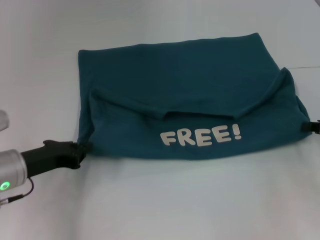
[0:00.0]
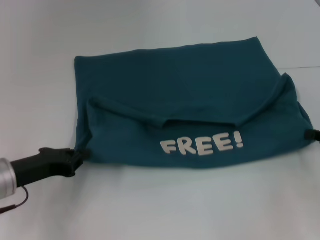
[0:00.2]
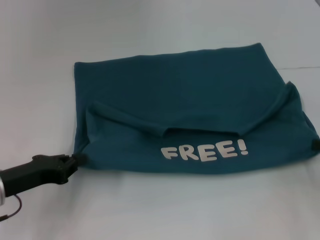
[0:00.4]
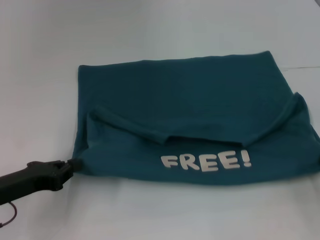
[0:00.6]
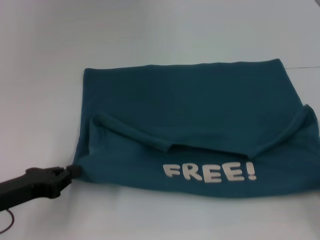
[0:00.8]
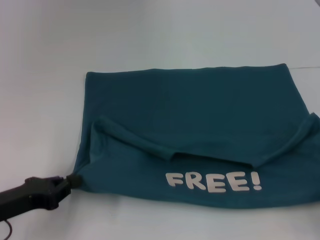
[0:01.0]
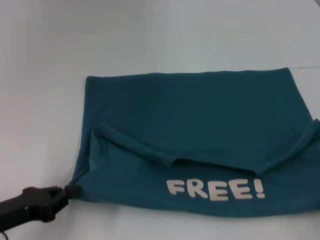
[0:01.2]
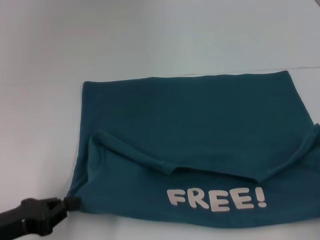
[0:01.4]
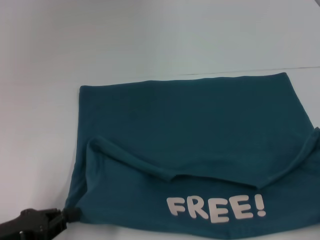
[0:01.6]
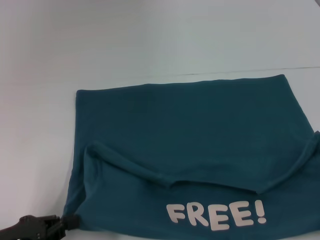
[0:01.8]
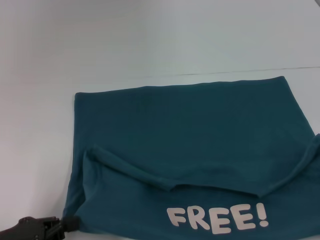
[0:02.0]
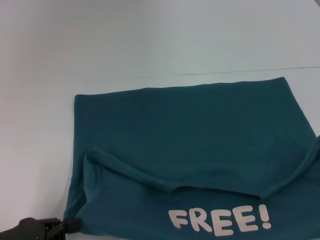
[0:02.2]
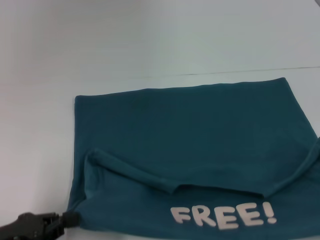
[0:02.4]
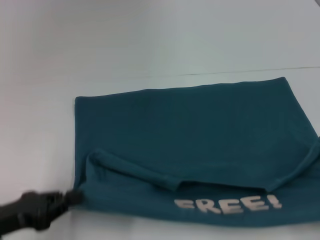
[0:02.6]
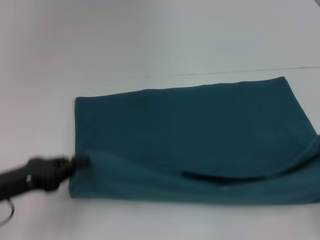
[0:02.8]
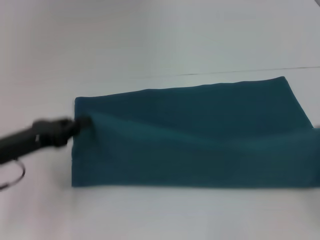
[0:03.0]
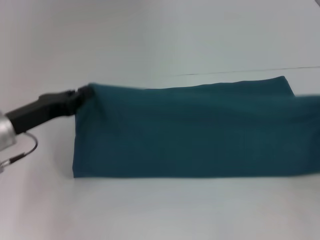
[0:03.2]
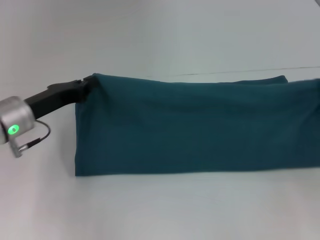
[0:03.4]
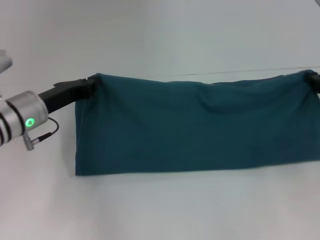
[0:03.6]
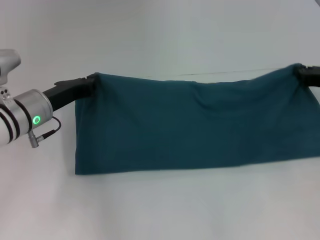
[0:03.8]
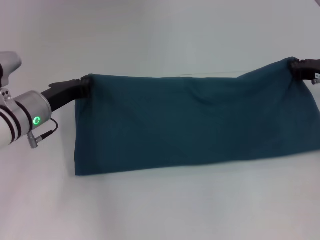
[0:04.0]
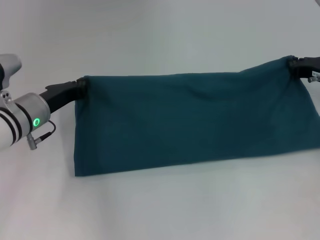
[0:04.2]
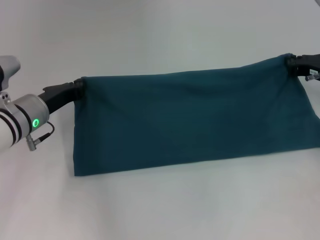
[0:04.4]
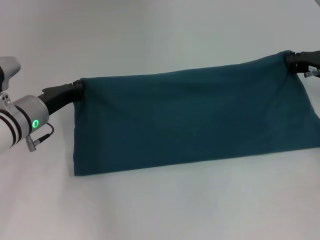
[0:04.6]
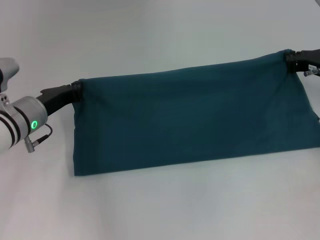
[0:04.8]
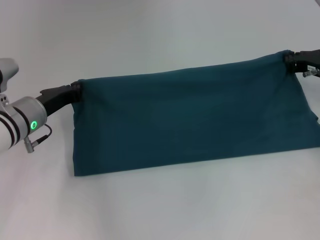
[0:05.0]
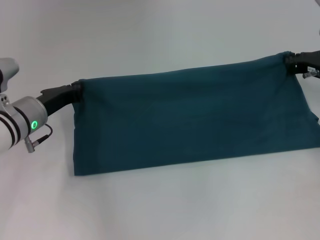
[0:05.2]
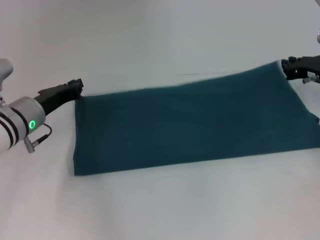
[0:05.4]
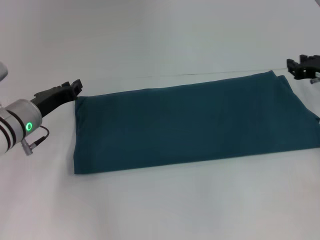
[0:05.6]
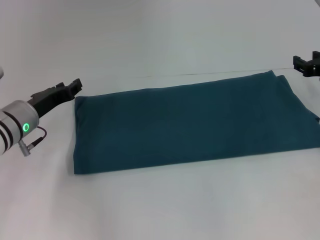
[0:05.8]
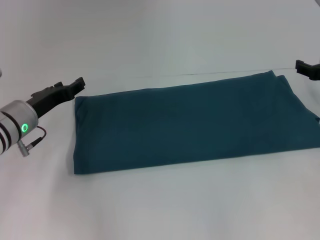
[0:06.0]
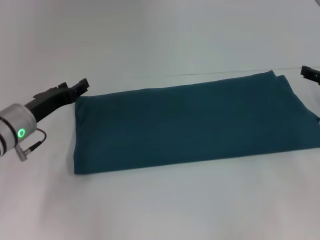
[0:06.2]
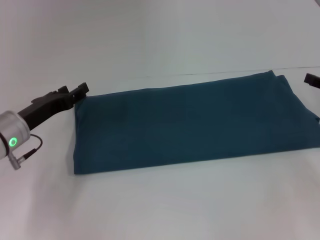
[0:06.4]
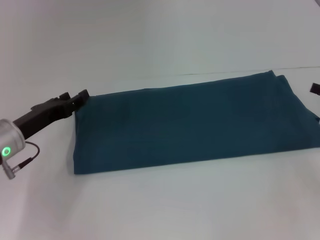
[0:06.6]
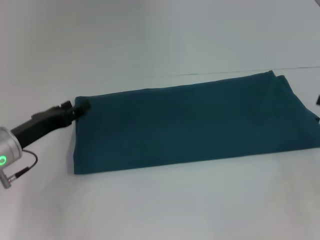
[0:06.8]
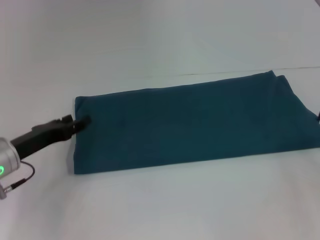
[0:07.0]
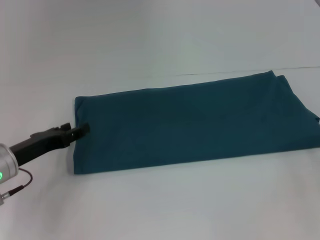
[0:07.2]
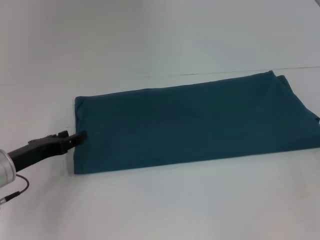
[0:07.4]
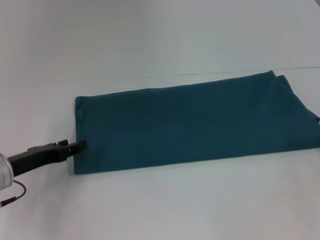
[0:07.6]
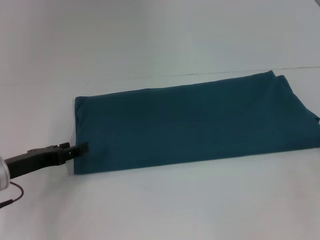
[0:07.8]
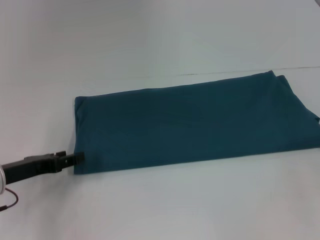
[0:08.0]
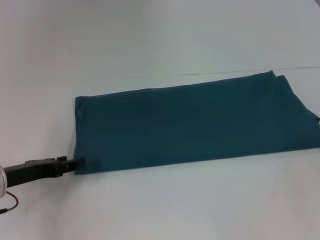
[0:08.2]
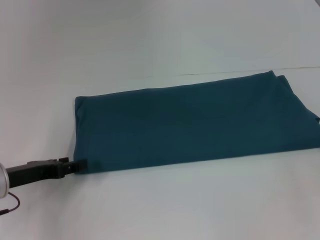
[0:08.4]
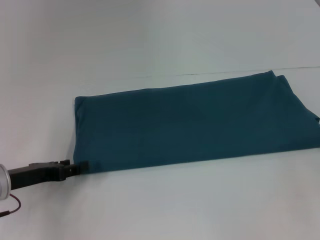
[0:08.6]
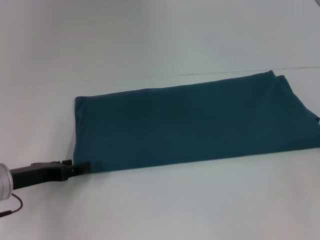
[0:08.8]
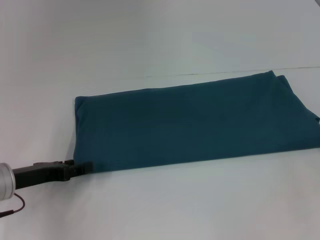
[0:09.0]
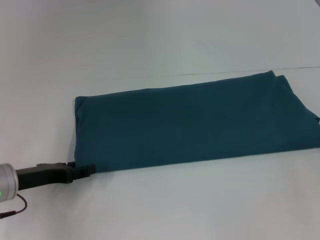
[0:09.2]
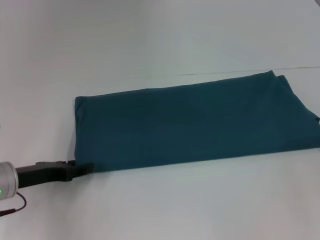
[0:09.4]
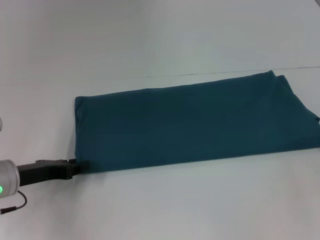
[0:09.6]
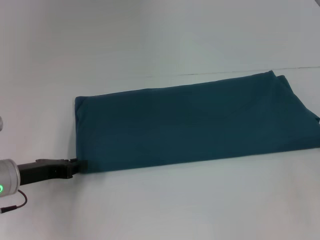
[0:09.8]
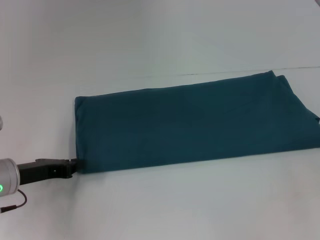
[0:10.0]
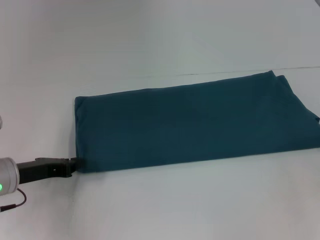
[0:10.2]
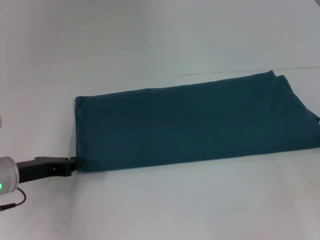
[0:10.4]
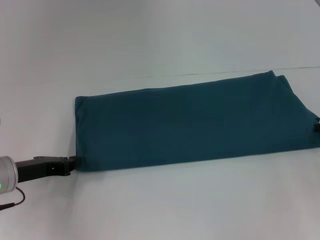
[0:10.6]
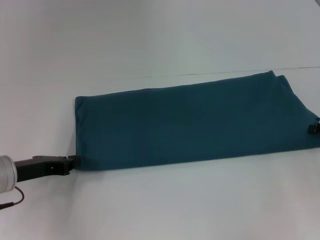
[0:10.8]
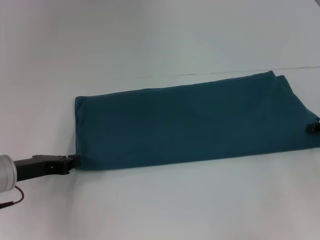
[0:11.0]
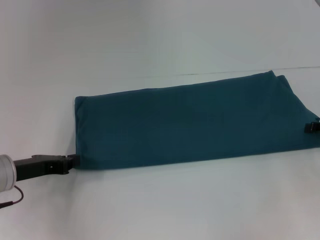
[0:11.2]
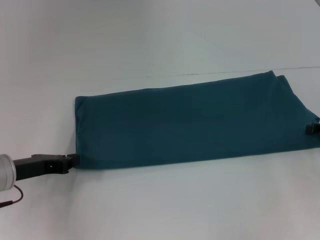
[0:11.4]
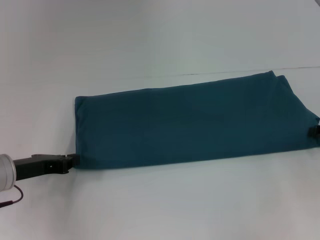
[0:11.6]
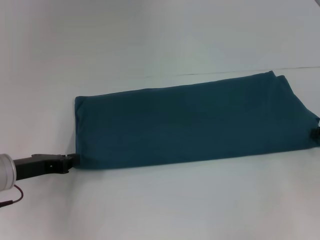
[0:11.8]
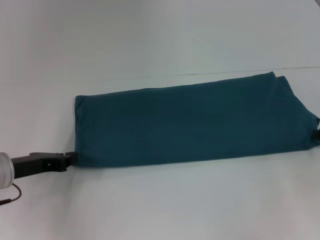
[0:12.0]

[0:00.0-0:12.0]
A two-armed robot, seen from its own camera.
Step, 0:02.0 to 0:05.4: Fold the clothes to the left.
Step, 0:02.0 to 0:05.4: Fold the clothes to the right.
0:00.0 to 0:01.6: The right gripper goes some 20 cm backward. The left gripper goes roughly 10 cm backward.
0:01.6 to 0:03.0: The right gripper heads forward, covering some 10 cm. The left gripper shifts approximately 10 cm forward and upward.
0:03.0 to 0:04.4: The left gripper heads forward and to the right, covering about 10 cm; the right gripper heads forward and to the left, covering about 20 cm.
0:04.4 to 0:06.0: The left gripper opens. The right gripper opens up.
0:06.0 to 0:07.6: The right gripper travels backward and to the right by about 15 cm. The left gripper travels backward by about 5 cm.
0:07.6 to 0:09.0: The grippers make only small movements.
0:09.0 to 0:10.4: The left gripper closes up.
0:10.4 to 0:12.0: The right gripper closes up.

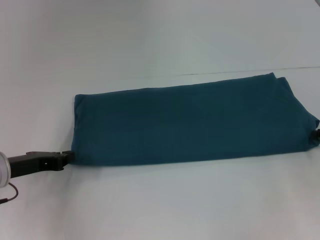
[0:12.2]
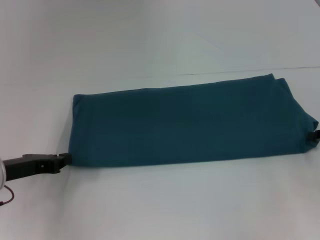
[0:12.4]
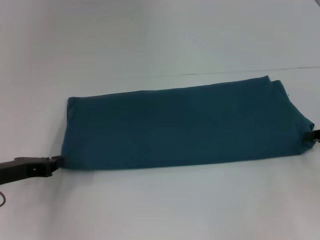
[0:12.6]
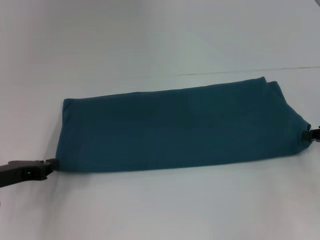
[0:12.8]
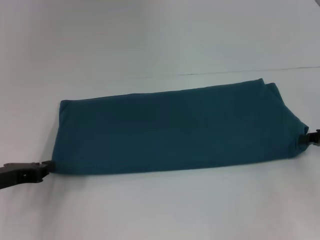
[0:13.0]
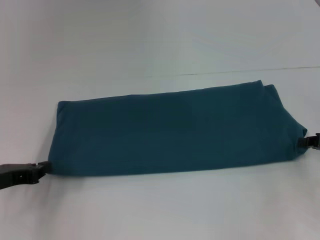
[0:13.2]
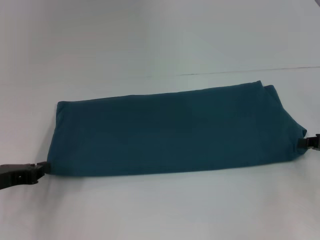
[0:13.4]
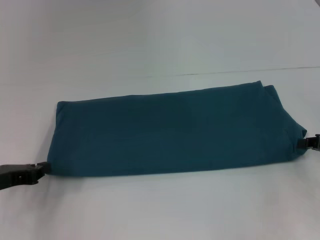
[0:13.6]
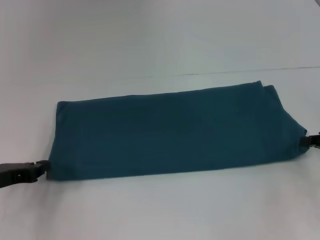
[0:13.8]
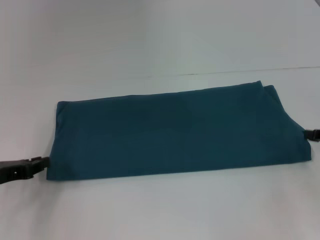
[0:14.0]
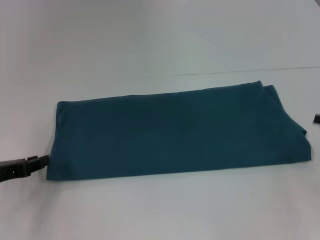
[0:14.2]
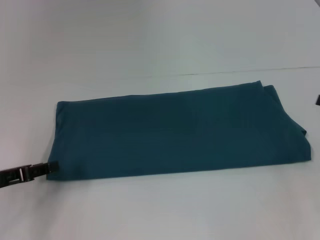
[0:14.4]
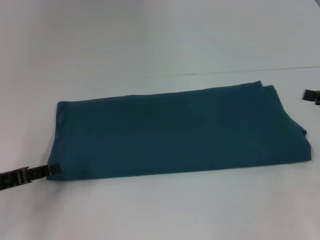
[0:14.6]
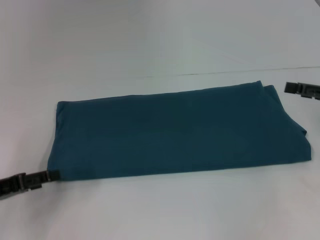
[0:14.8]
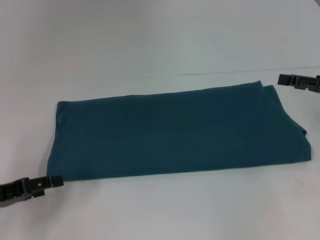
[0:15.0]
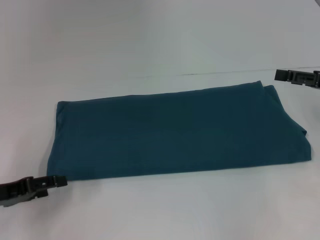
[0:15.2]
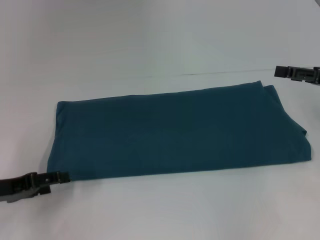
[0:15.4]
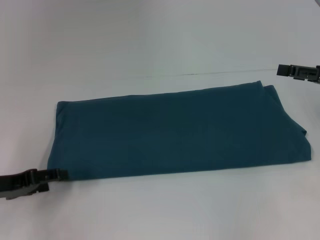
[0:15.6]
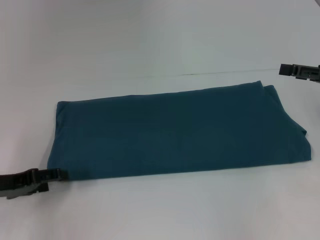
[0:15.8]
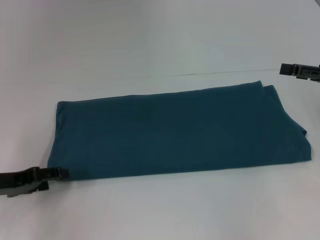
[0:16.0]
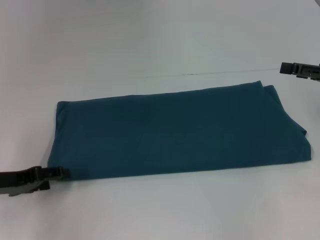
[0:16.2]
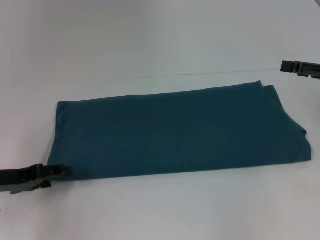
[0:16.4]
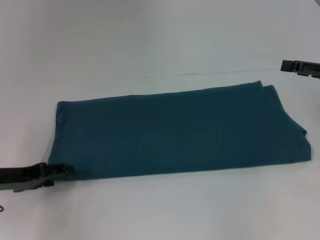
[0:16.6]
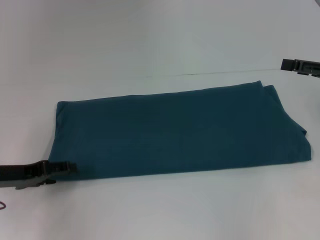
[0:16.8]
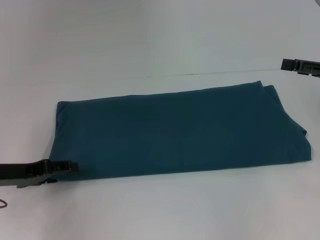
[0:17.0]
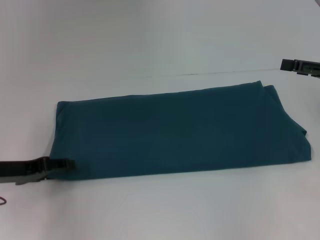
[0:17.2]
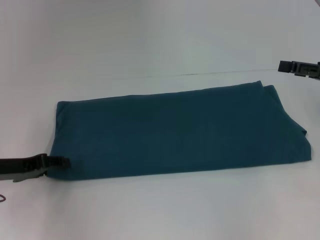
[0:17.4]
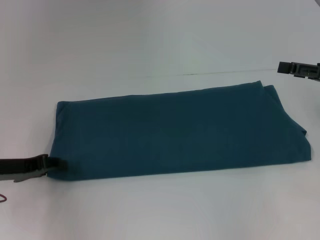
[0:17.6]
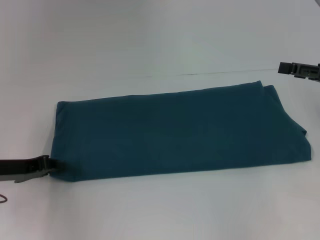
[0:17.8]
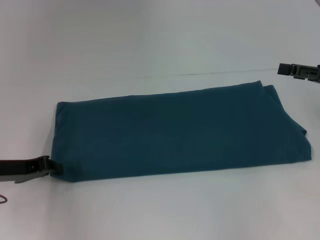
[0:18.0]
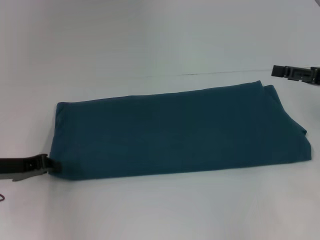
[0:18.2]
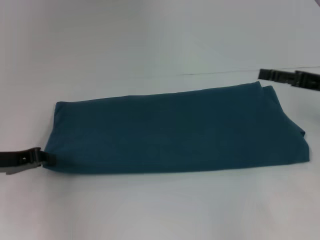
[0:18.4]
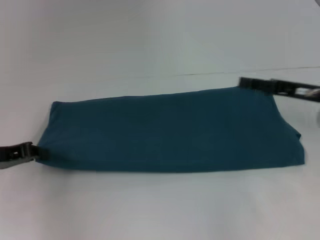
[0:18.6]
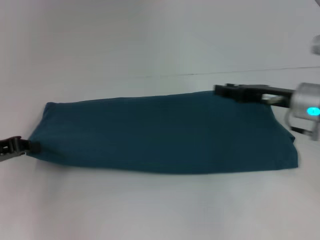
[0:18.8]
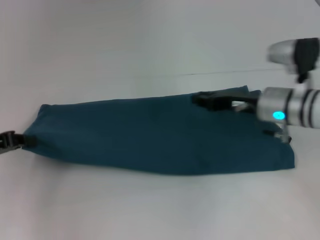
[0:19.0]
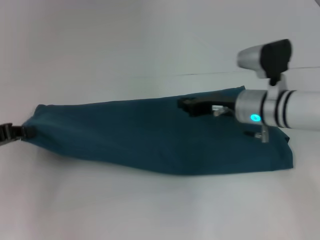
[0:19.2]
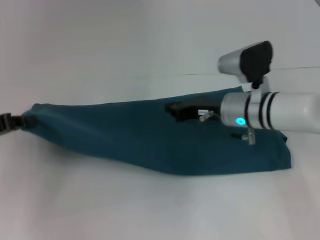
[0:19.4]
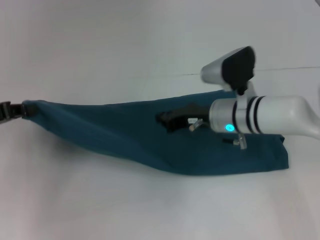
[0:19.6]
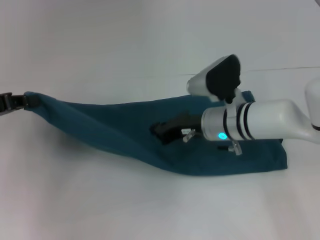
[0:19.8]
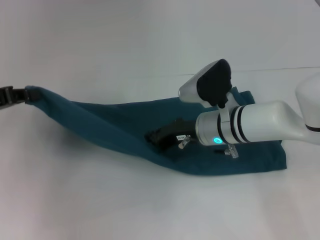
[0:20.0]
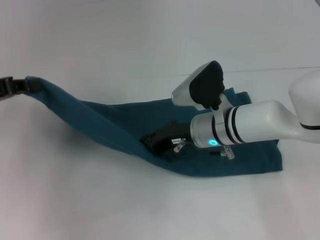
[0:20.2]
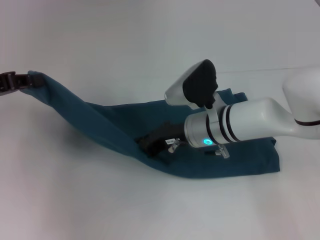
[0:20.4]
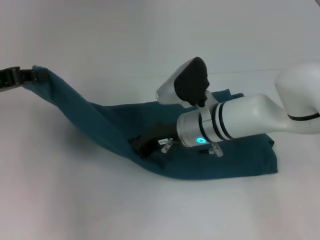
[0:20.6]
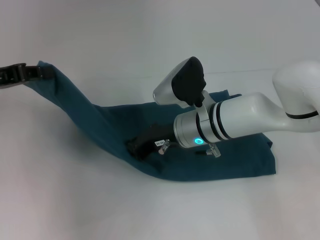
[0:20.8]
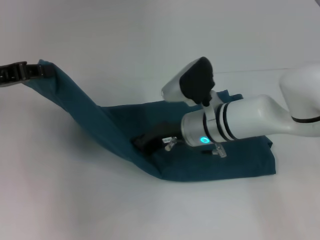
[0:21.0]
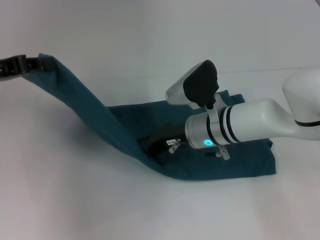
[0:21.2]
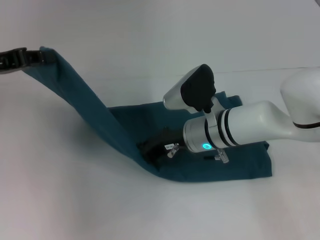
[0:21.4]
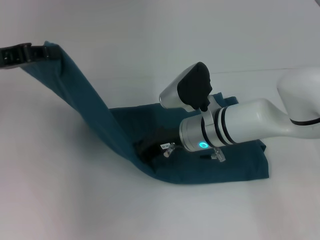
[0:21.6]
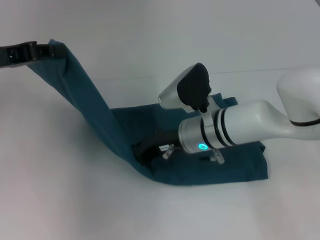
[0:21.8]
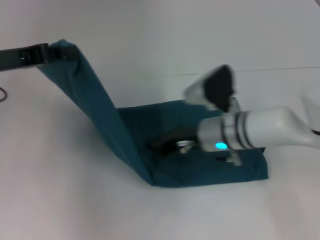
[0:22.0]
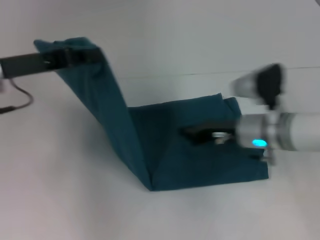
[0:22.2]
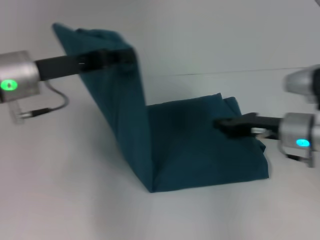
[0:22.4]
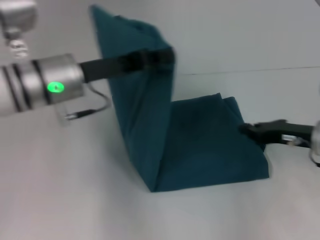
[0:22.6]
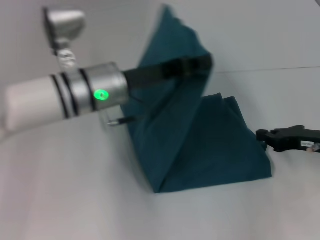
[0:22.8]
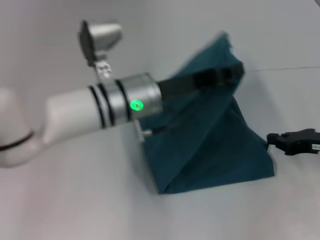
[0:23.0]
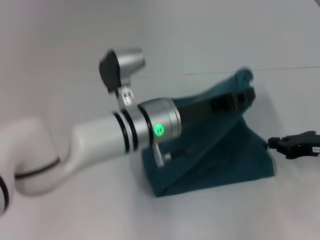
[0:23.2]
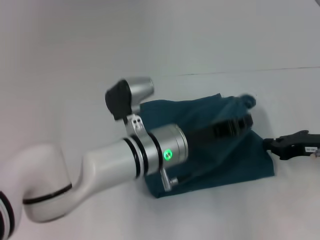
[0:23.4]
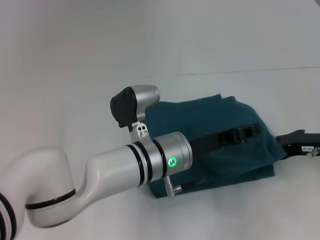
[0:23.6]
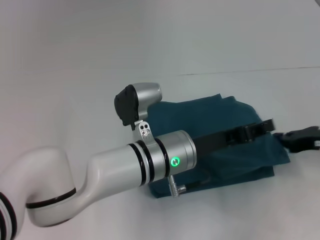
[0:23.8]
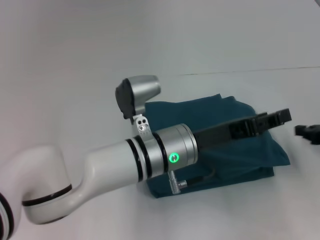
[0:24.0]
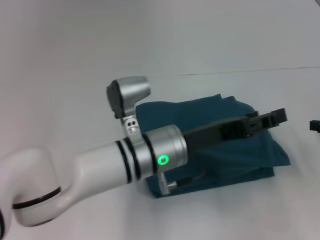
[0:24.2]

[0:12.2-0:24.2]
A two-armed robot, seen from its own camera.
Step, 0:14.2 to 0:22.0: Press the middle of the clothes with your right hand.
Step, 0:22.2 to 0:23.6: Fold the clothes to the left.
0:12.2 to 0:13.8: The grippers move only a little.
0:13.8 to 0:15.2: The left gripper opens up; the right gripper shifts approximately 5 cm upward, and opens.
0:15.2 to 0:16.6: The grippers stay close to where they were, moving slightly.
0:16.6 to 0:18.2: The left gripper closes its fingers.
0:18.2 to 0:19.8: The right gripper is displaced to the left by about 25 cm, and closes up, while the left gripper moves upward, about 10 cm.
0:19.8 to 0:21.2: The left gripper shifts by about 5 cm.
0:21.2 to 0:22.6: Both grippers move to the right, about 15 cm.
0:22.6 to 0:24.2: The right gripper travels to the right by roughly 10 cm. The left gripper is displaced to the right, downward and backward by approximately 15 cm, and opens up.
